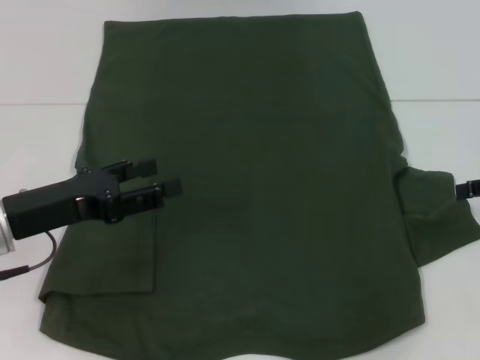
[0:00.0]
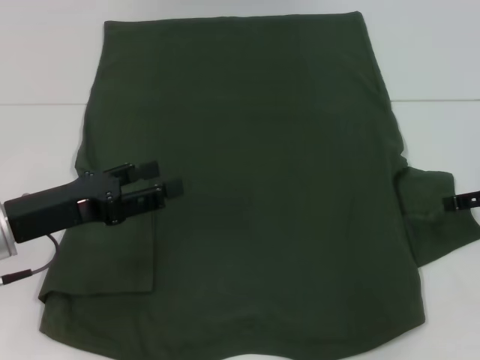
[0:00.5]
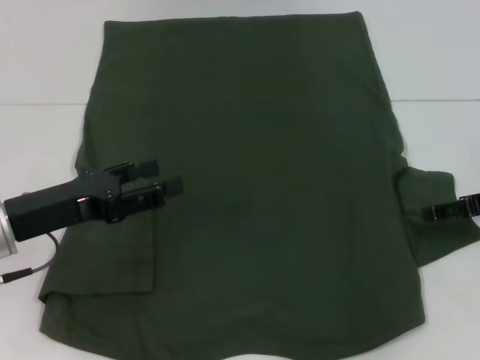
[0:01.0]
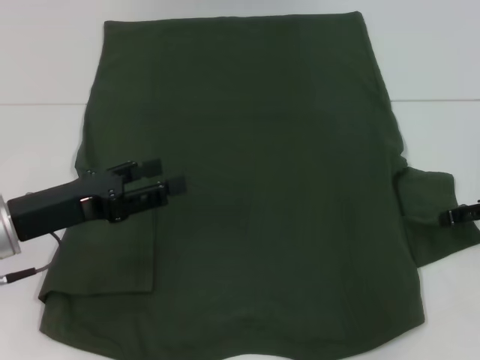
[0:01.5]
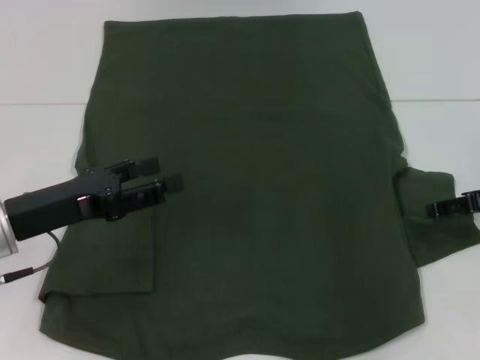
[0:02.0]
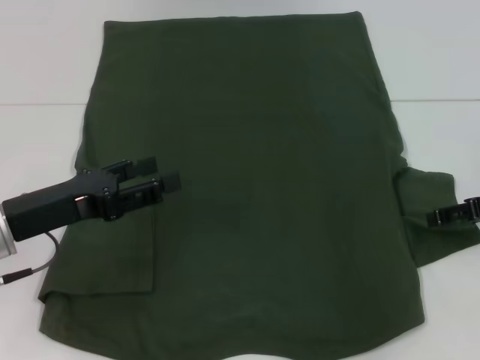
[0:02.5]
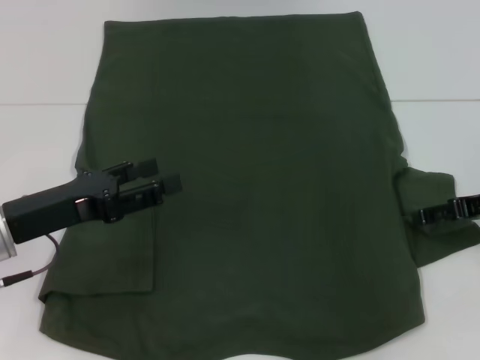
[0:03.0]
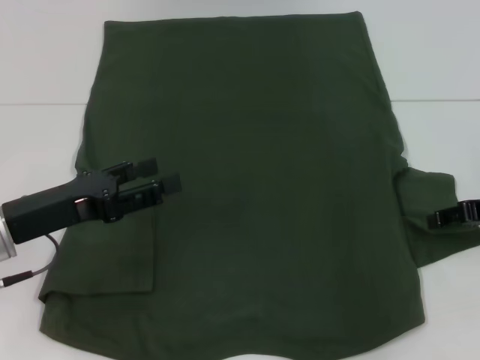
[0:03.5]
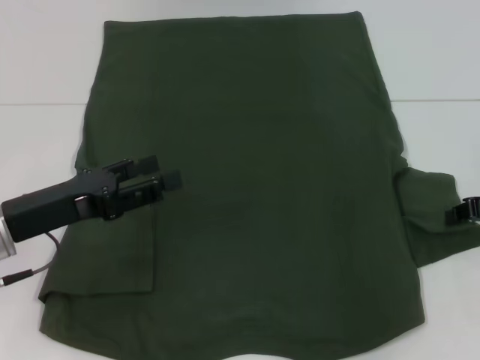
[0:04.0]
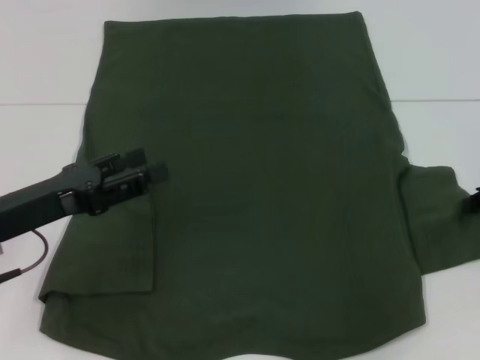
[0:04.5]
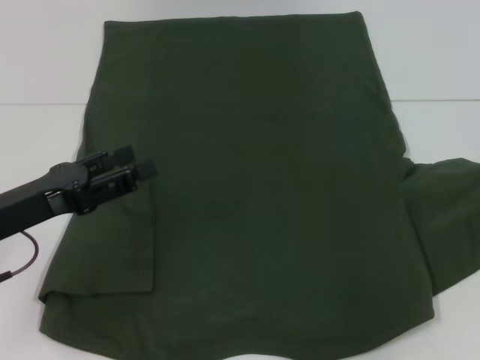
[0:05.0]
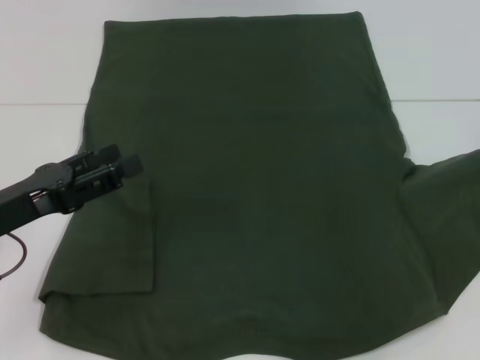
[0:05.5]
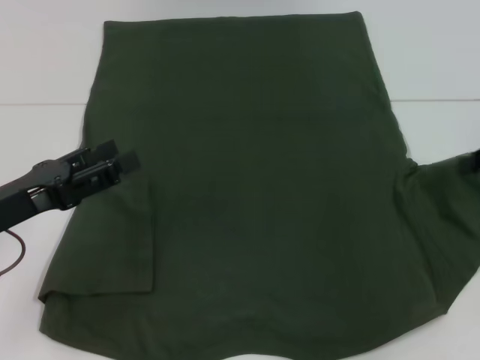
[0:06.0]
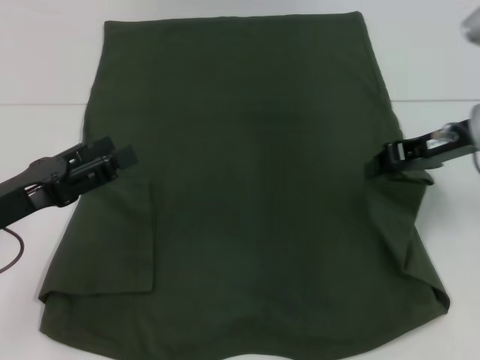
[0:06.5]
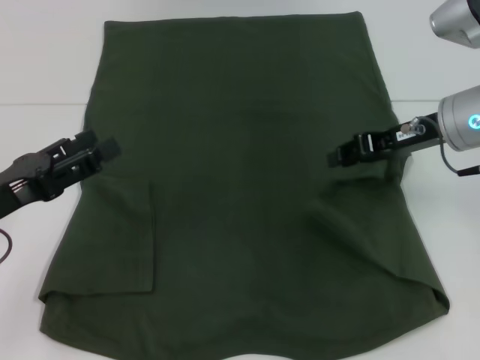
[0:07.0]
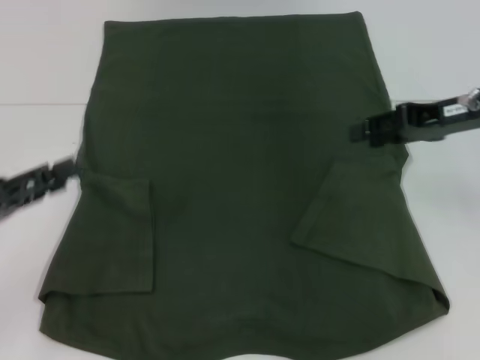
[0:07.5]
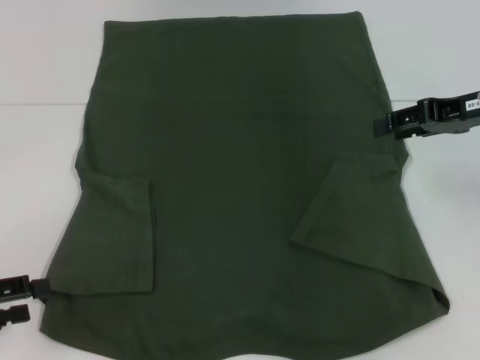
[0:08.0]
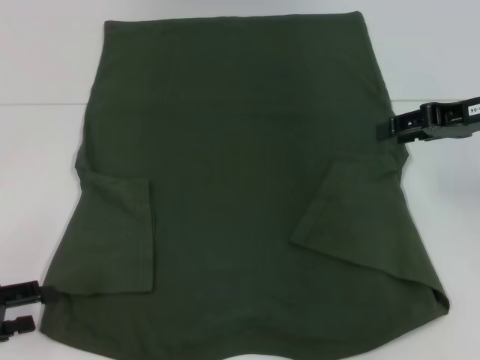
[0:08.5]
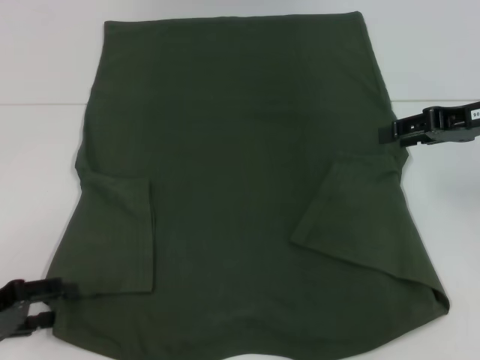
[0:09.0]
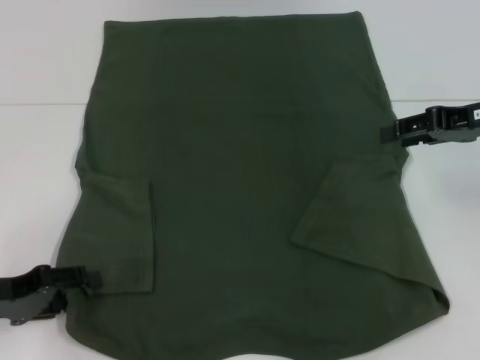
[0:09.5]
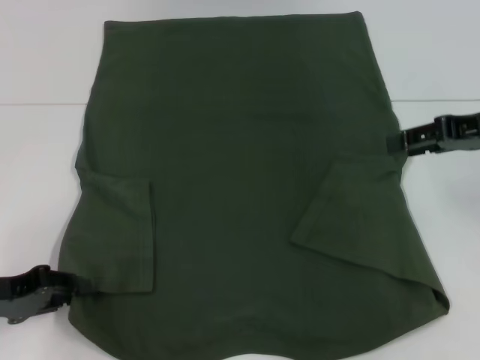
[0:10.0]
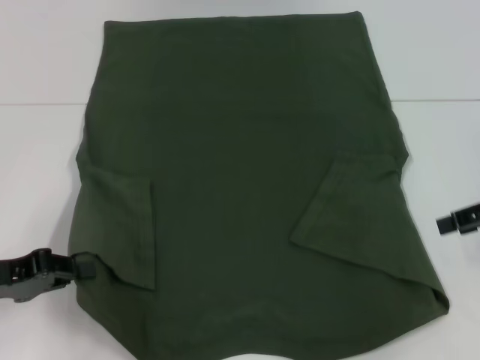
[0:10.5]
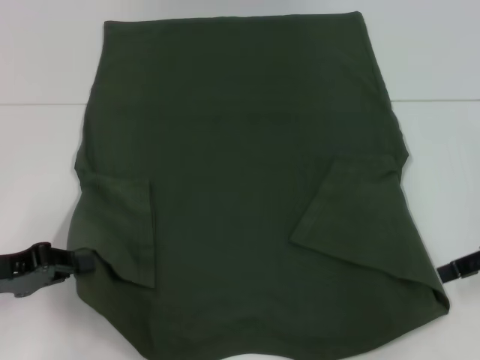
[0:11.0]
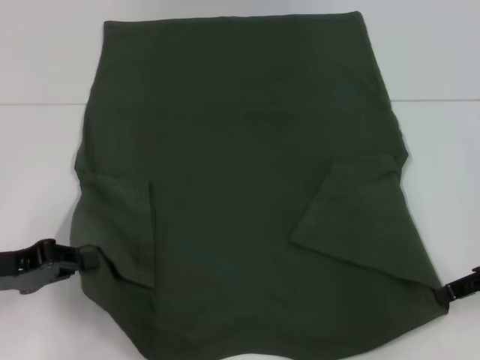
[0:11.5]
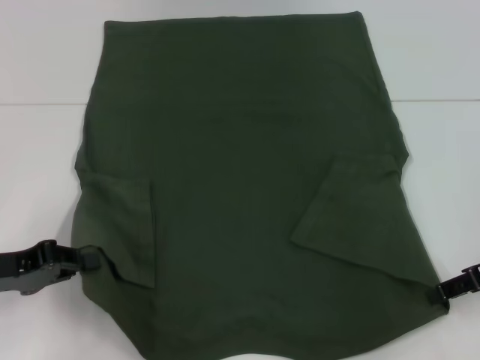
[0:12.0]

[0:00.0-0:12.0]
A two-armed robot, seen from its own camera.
Step, 0:00.0 to 0:07.5: Fold the bottom right sleeve with your right hand.
Step, 0:08.0 to 0:10.0: Grab the bottom left corner with your left hand.
0:00.0 to 0:02.0: The grippers make only small movements.
0:04.0 to 0:06.0: The right gripper moves upward, about 5 cm.
0:06.0 to 0:08.0: The left gripper moves to the left and backward, some 10 cm. The right gripper goes some 5 cm to the left, and opens up.
0:08.0 to 0:10.0: The left gripper ends up some 5 cm from where it was.
0:10.0 to 0:12.0: The left gripper closes. The right gripper heads downward and backward, covering some 10 cm.

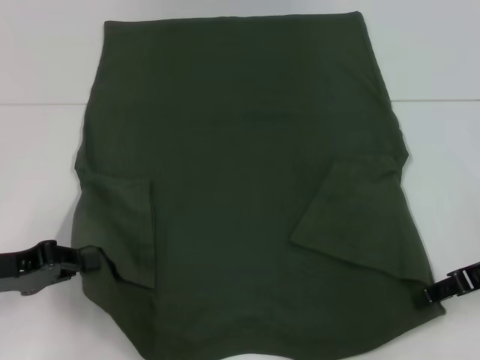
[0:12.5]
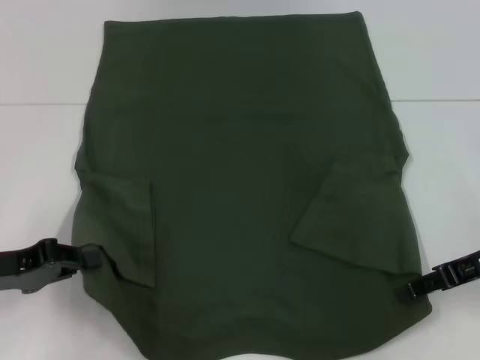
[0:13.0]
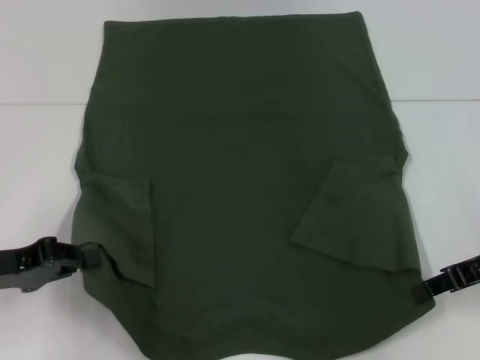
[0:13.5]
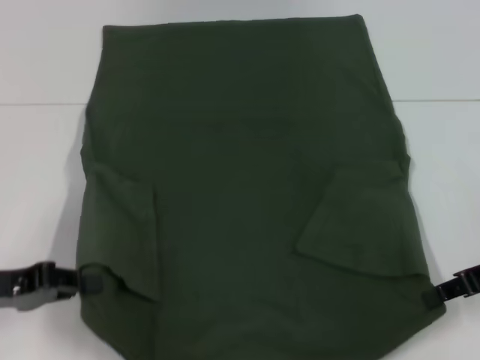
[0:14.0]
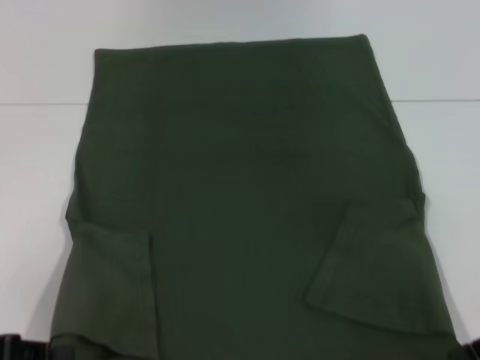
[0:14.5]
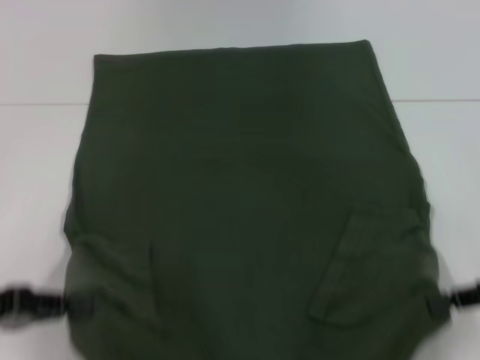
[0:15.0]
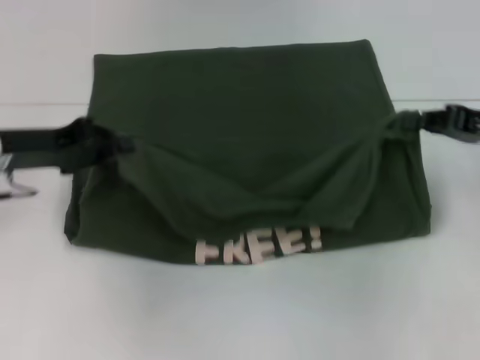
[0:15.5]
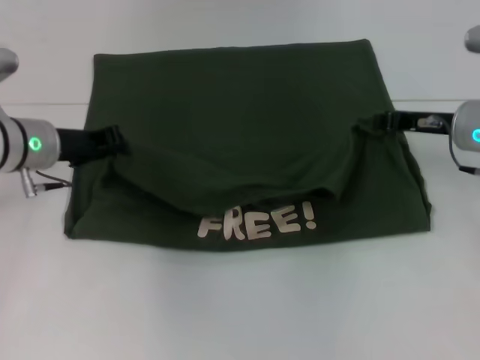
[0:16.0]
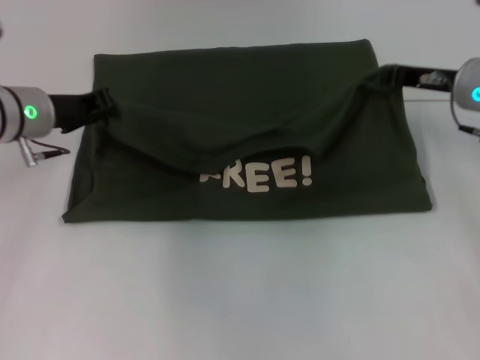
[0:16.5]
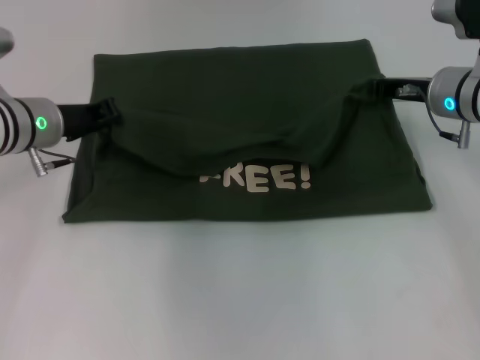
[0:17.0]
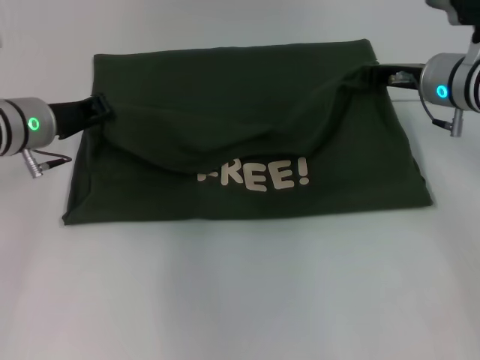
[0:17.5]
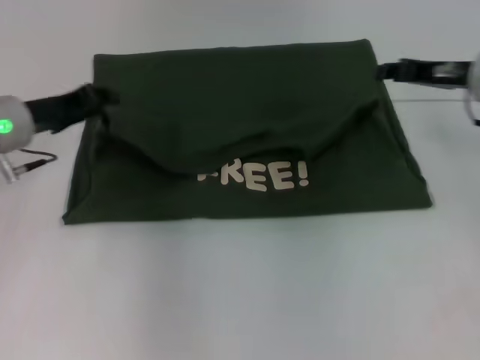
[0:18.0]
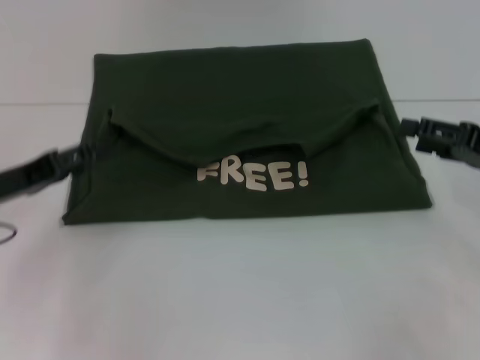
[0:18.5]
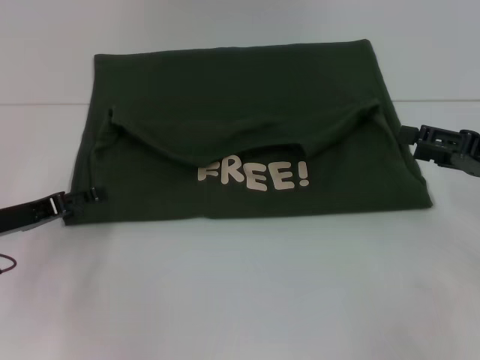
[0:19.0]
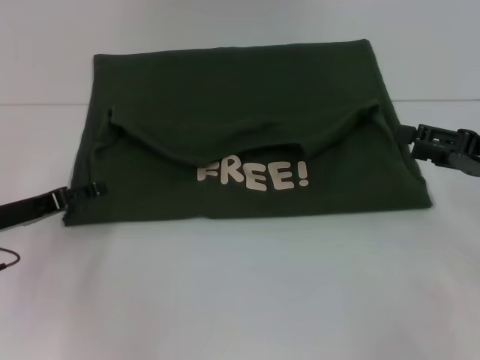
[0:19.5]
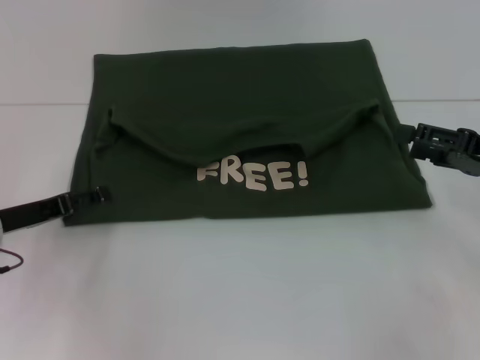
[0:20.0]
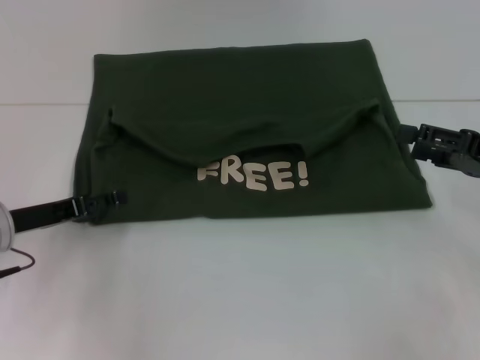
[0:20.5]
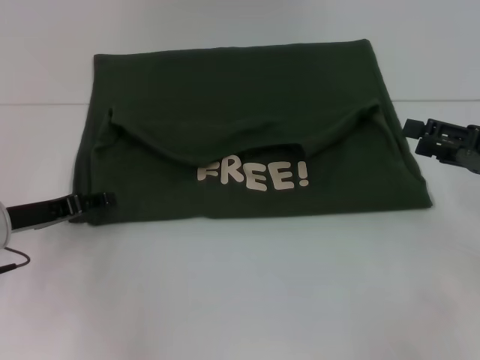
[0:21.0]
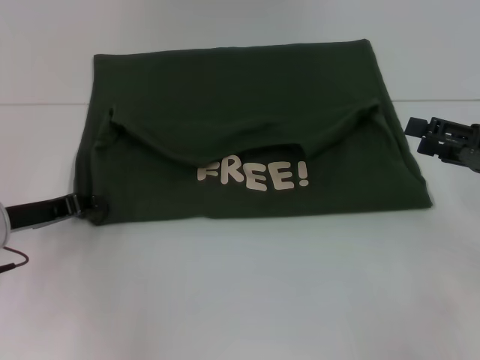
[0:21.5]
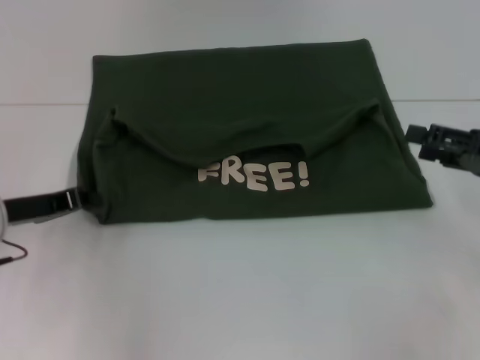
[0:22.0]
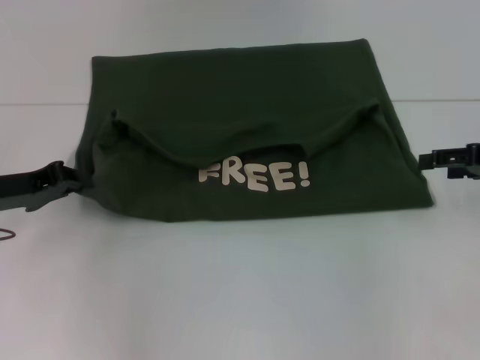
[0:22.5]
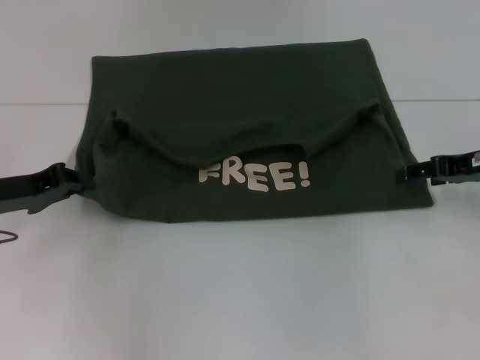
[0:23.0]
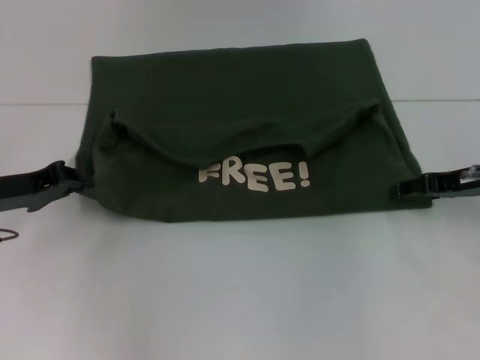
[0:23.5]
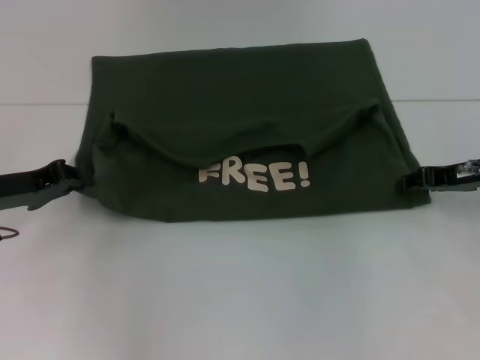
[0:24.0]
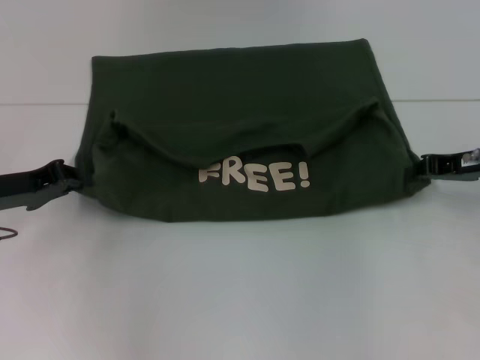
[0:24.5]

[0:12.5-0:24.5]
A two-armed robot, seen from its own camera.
Step, 0:14.0 to 0:18.0: Fold the clothes with your left hand.
Step, 0:14.0 to 0:18.0: Fold the clothes with your right hand.
0:12.5 to 0:14.5: The left gripper moves backward, approximately 5 cm. The right gripper moves about 5 cm, and closes its fingers.
0:14.5 to 0:16.5: The left gripper moves forward, some 25 cm, while the right gripper heads forward and to the left, covering approximately 20 cm.
0:16.5 to 0:18.5: The left gripper moves backward and to the left, some 15 cm, and opens its fingers. Meanwhile the right gripper heads backward and to the right, covering about 15 cm, and opens its fingers.
0:18.5 to 0:20.5: The grippers stay close to where they were, moving slightly.
0:20.5 to 0:22.5: The left gripper closes.
0:22.5 to 0:24.5: The right gripper ends up roughly 5 cm from where it was, and closes its fingers.

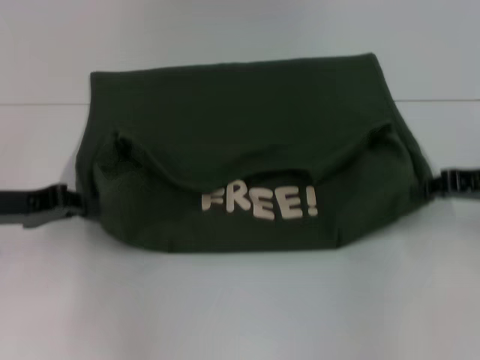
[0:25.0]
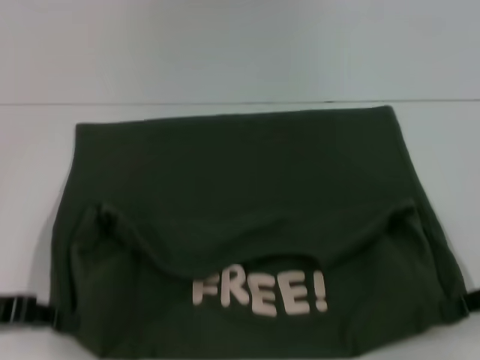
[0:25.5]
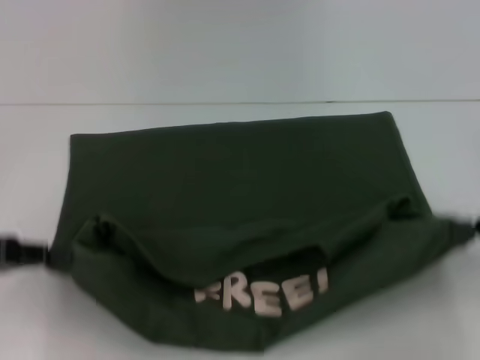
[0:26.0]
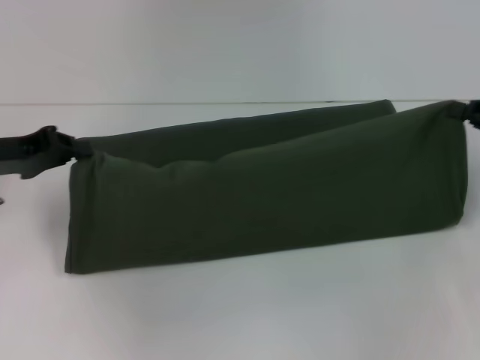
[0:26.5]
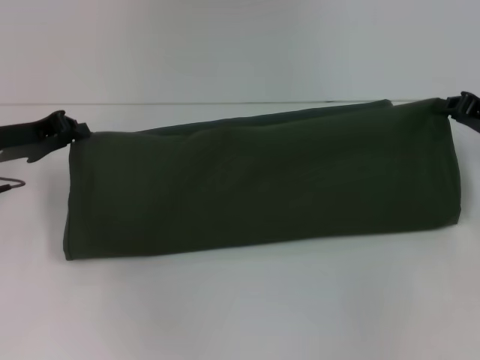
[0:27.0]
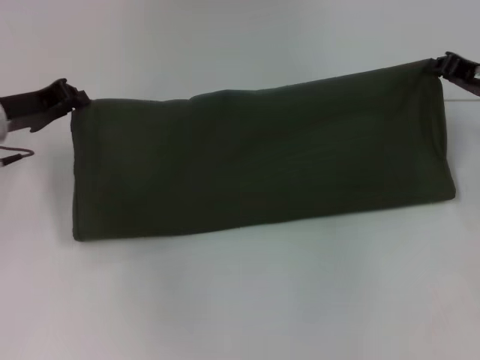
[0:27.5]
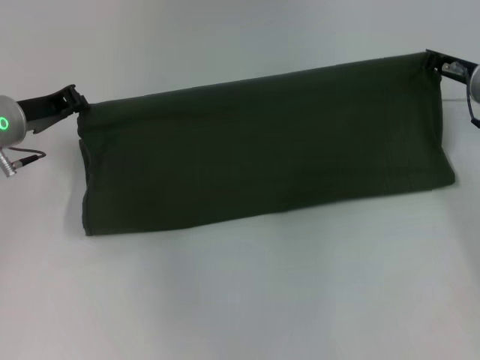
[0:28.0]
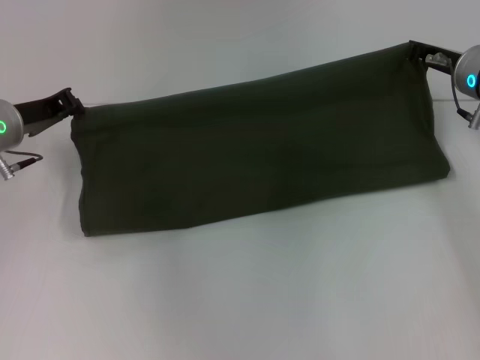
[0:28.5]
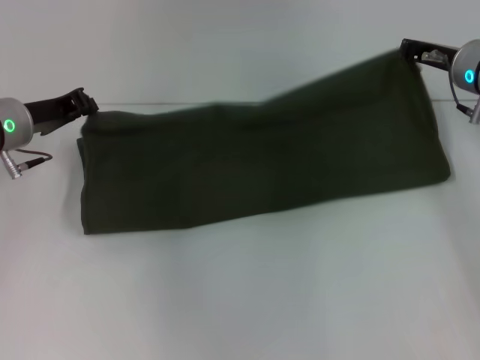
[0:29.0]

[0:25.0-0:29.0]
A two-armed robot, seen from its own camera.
0:25.0 to 0:27.0: The left gripper travels forward by about 5 cm.
0:27.0 to 0:29.0: The right gripper travels to the left and forward by some 10 cm.
